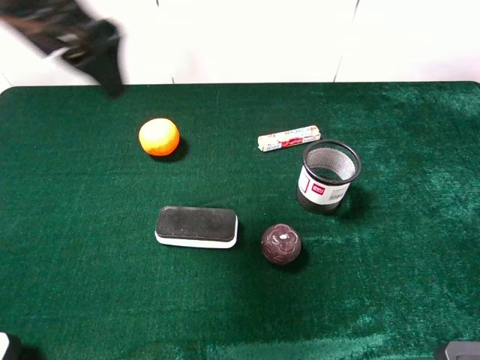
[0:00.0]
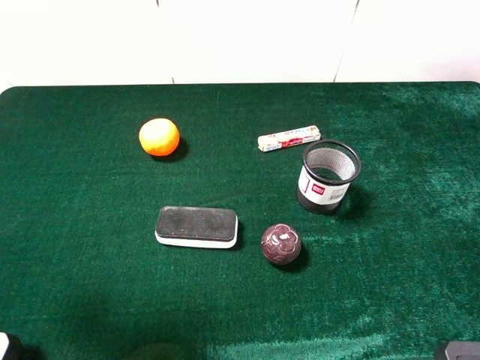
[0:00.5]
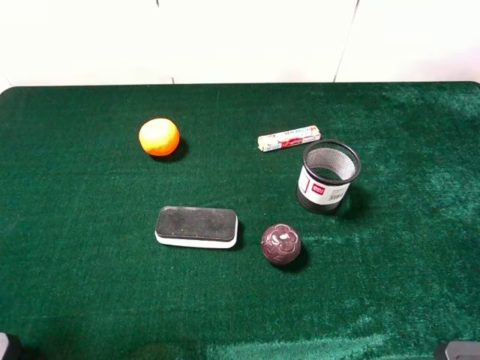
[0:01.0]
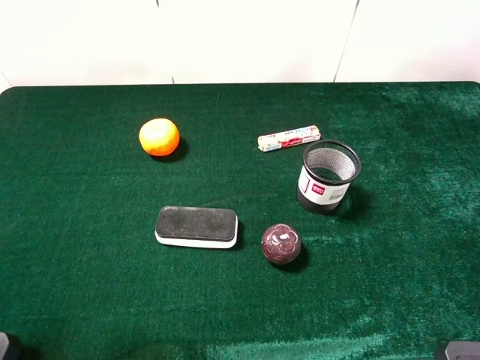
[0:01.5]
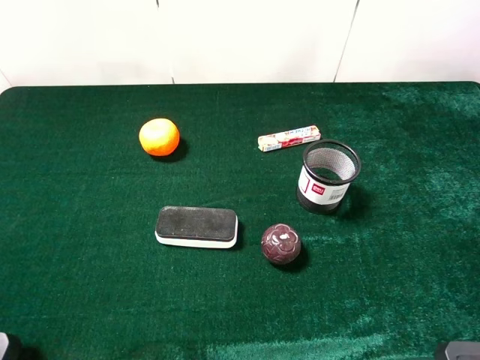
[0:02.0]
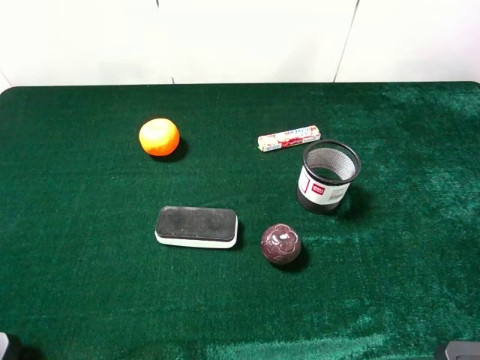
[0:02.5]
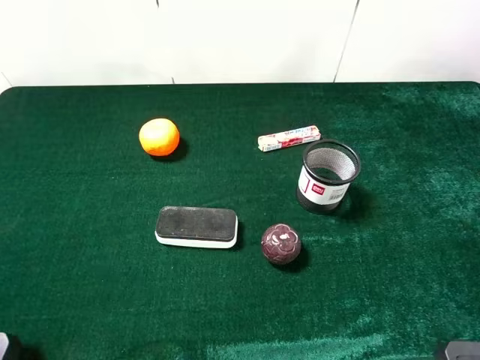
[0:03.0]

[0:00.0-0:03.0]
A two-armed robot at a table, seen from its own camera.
Task of the whole recording: the gripper move the object.
0:00.0 to 0:01.5: The left gripper moves backward and to the left, roughly 25 cm.
